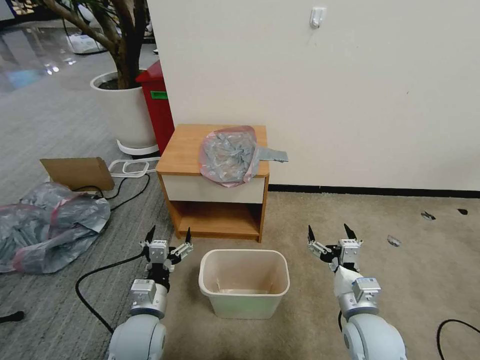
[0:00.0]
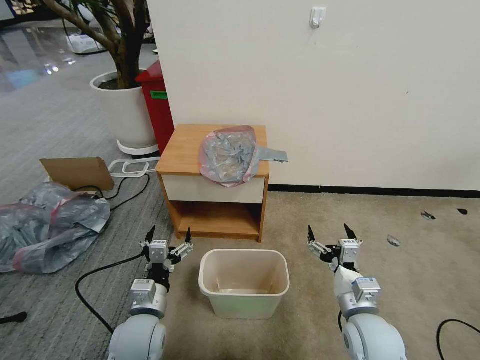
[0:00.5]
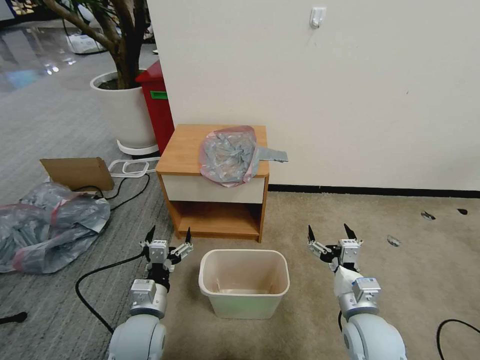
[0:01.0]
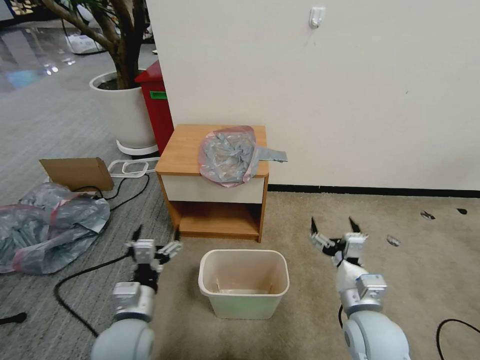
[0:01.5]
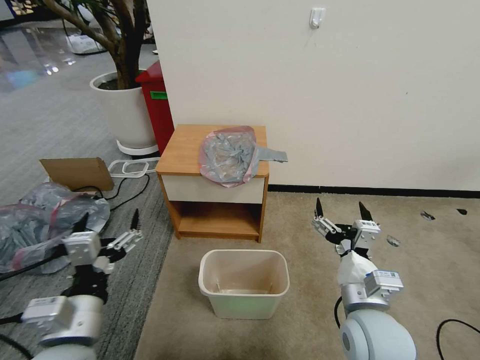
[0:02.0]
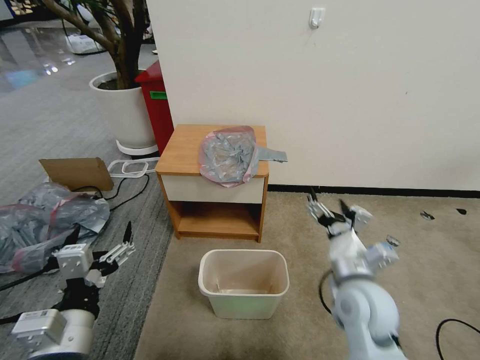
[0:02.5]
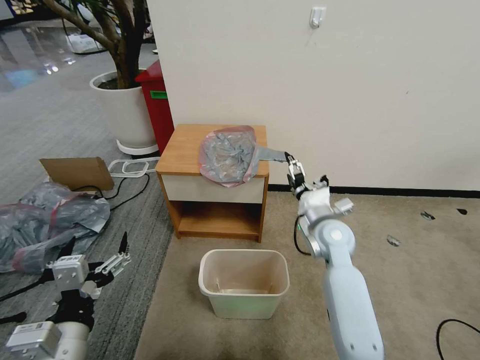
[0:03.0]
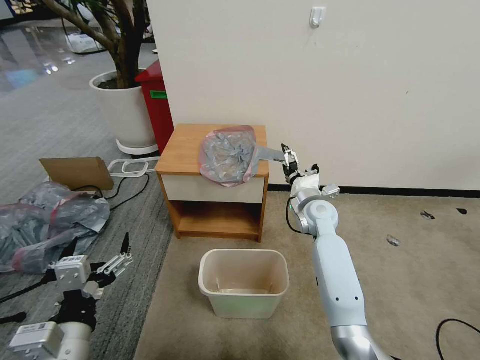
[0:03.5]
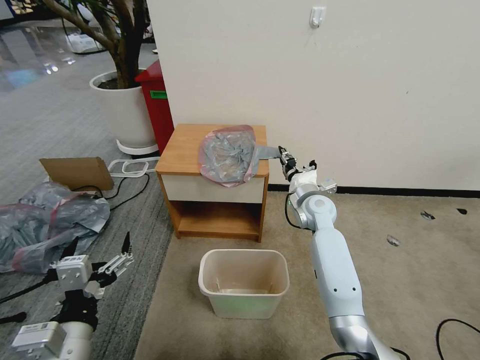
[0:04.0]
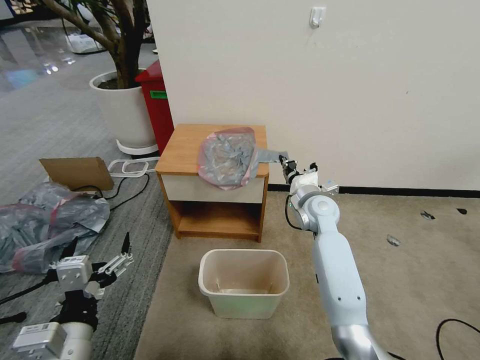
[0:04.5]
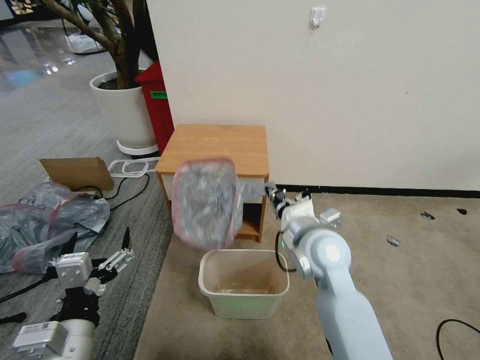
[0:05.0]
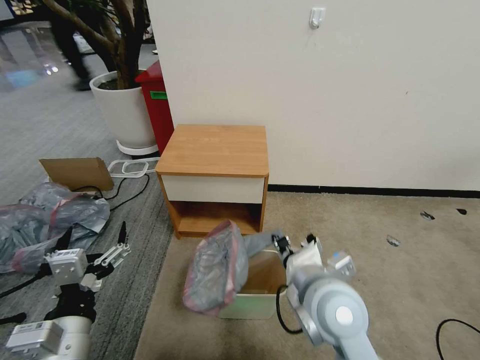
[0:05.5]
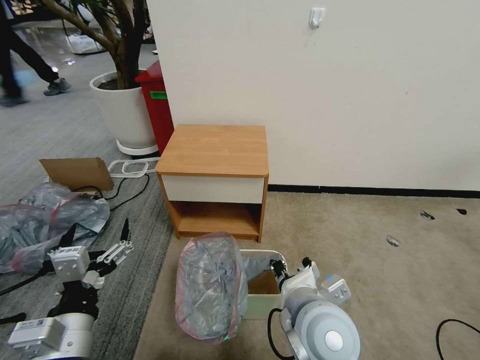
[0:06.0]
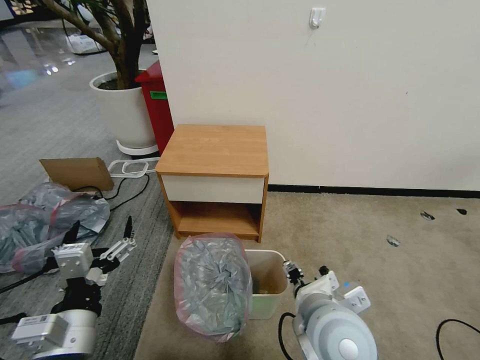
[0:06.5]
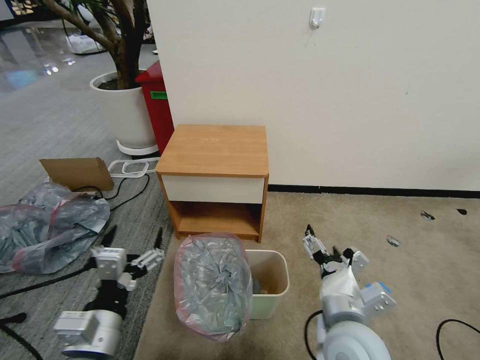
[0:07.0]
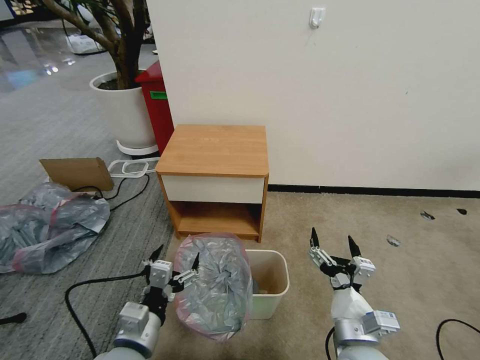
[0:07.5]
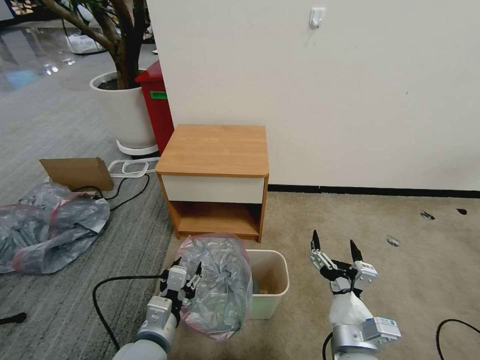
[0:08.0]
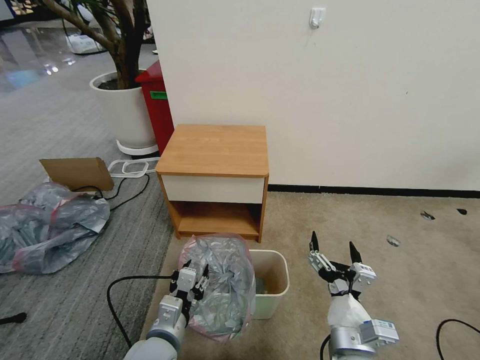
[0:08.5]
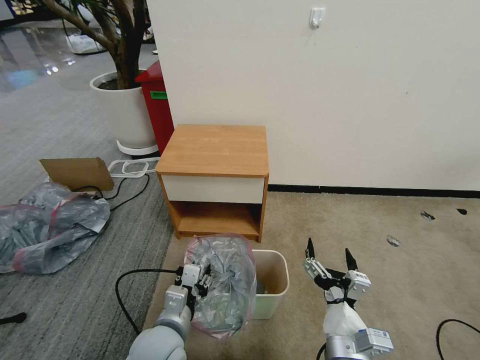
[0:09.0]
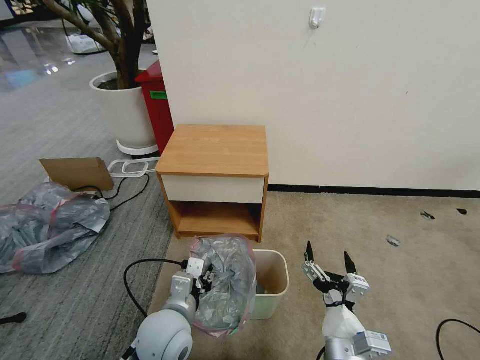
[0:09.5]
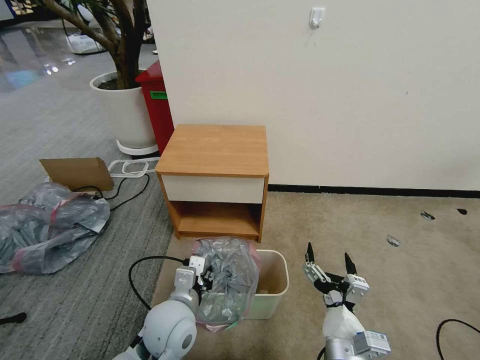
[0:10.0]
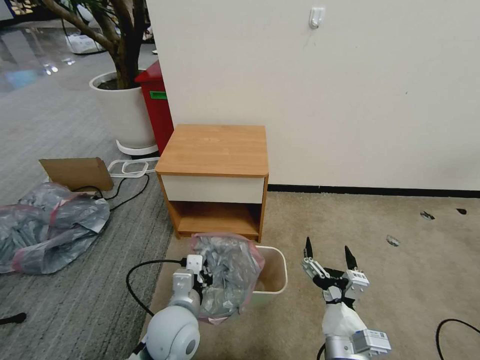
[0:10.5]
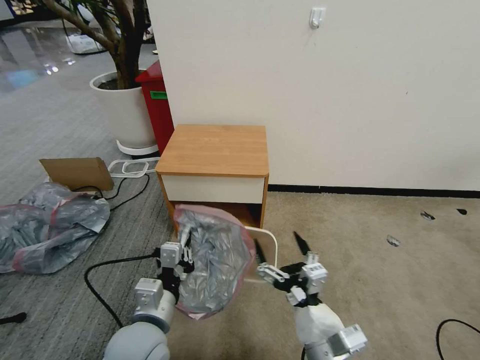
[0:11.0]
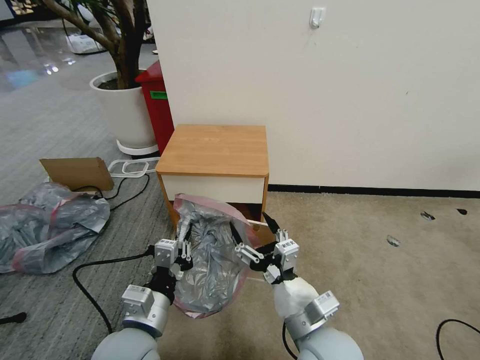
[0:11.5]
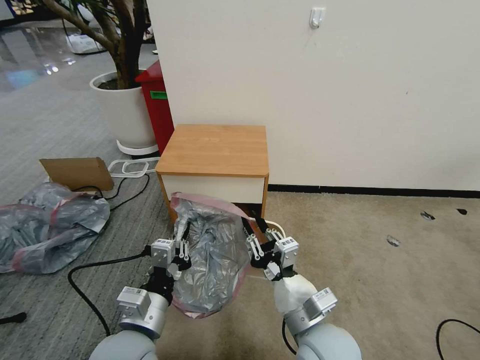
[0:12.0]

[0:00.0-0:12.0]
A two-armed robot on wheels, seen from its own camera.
Task of the whole recording: Pick up the garbage bag from the table and place it over the trash can.
0:02.0 to 0:04.0: The right gripper travels forward by about 30 cm, and closes its fingers.
0:04.0 to 0:06.0: The right gripper heads backward, covering roughly 30 cm.
0:06.0 to 0:08.0: The left gripper heads downward and to the right, covering approximately 15 cm, and closes up. The right gripper goes some 10 cm downward, to the right and backward, and opens.
0:08.0 to 0:10.0: The left gripper heads forward, covering some 5 cm.
0:10.0 to 0:12.0: The left gripper heads backward and upward, covering some 10 cm. The right gripper moves upward and forward, roughly 10 cm, and closes its fingers.

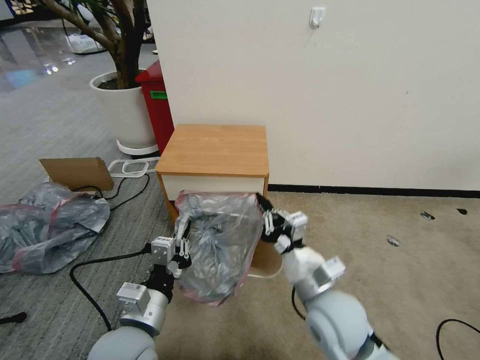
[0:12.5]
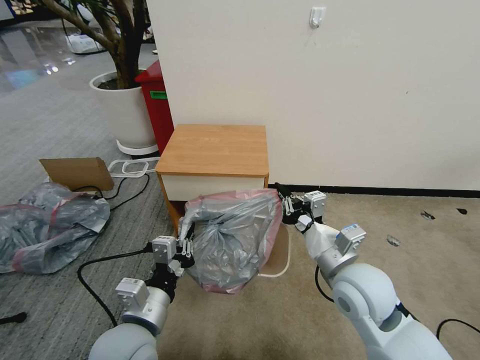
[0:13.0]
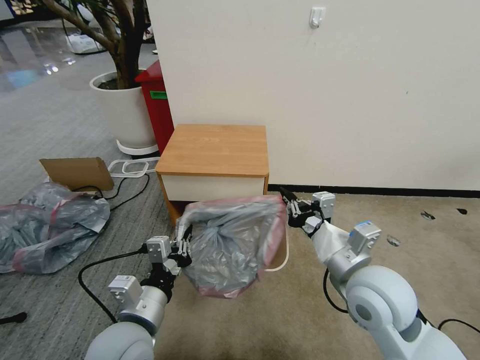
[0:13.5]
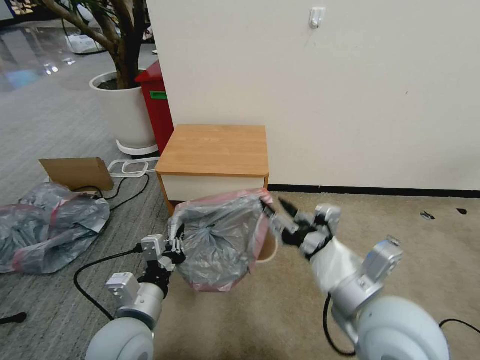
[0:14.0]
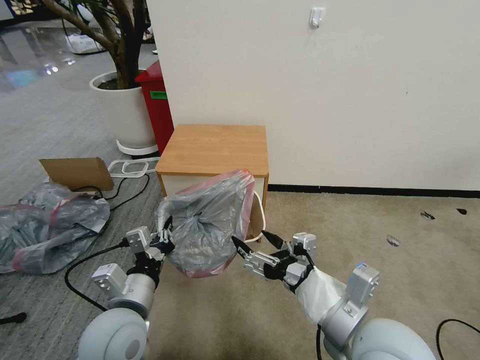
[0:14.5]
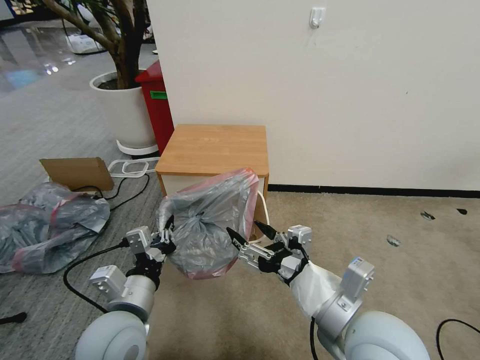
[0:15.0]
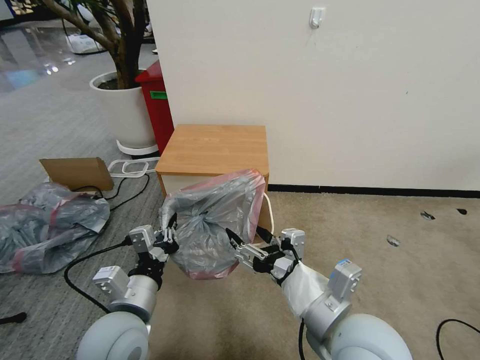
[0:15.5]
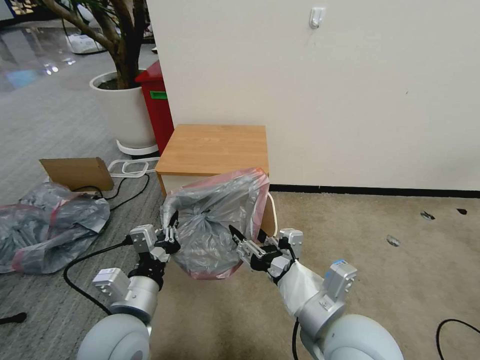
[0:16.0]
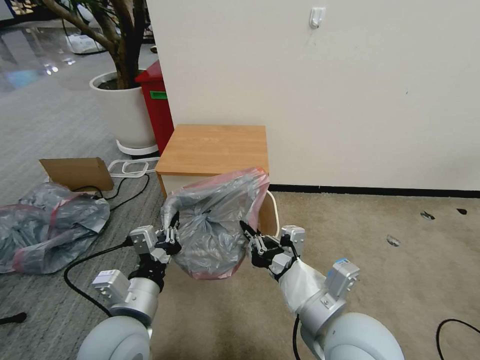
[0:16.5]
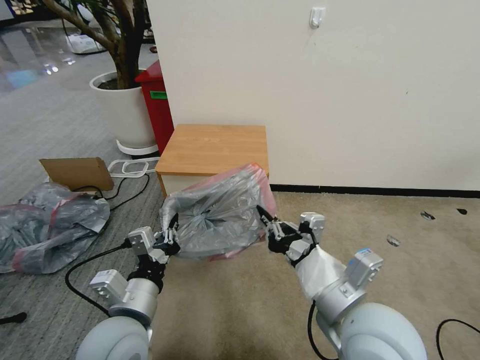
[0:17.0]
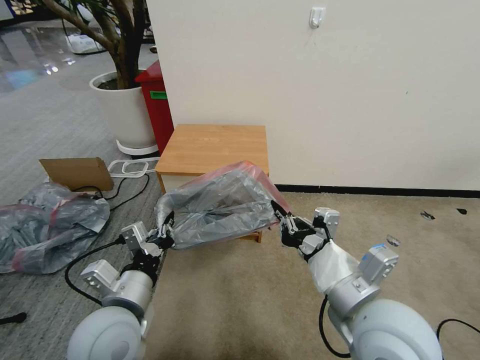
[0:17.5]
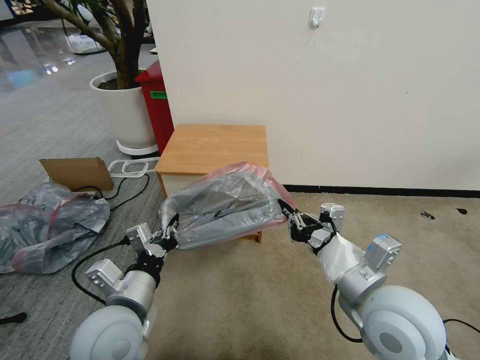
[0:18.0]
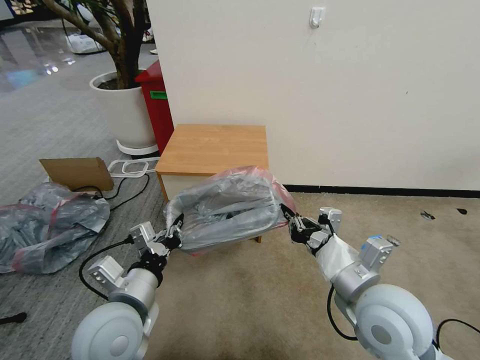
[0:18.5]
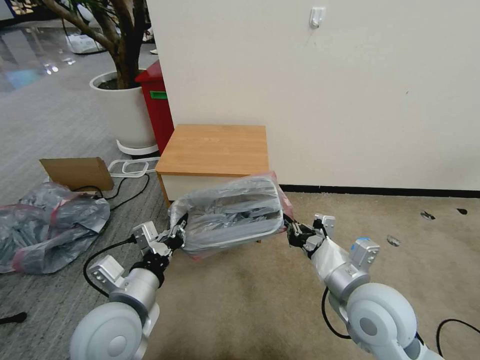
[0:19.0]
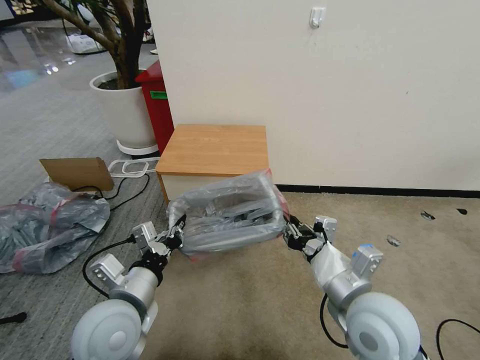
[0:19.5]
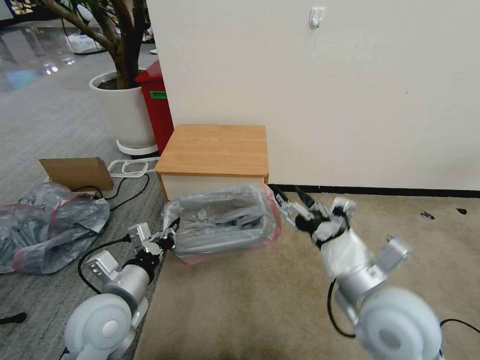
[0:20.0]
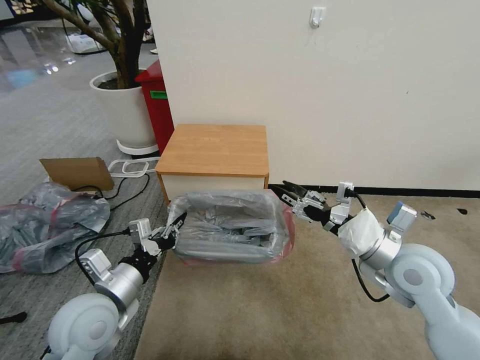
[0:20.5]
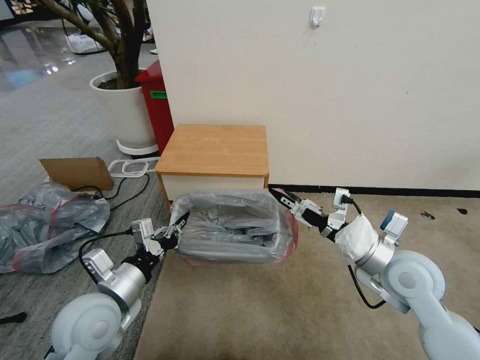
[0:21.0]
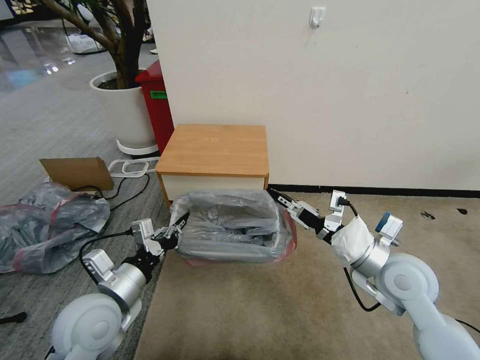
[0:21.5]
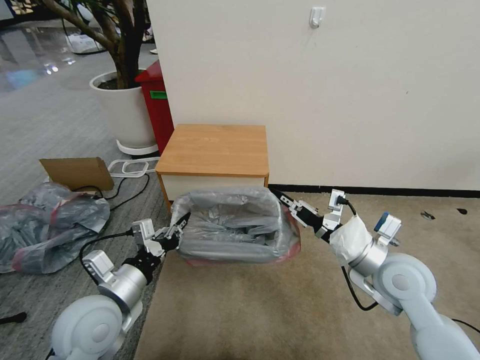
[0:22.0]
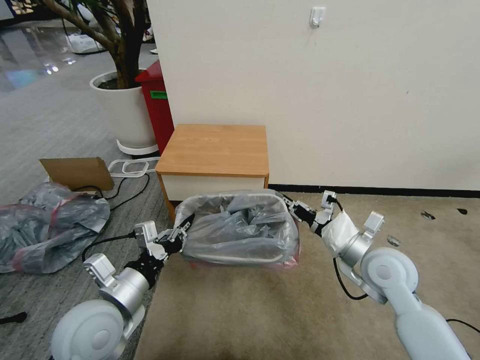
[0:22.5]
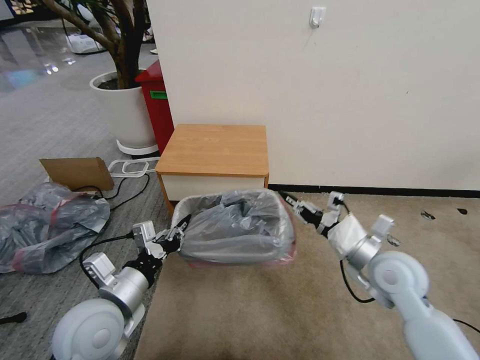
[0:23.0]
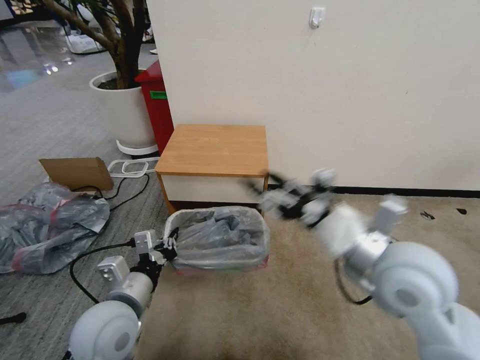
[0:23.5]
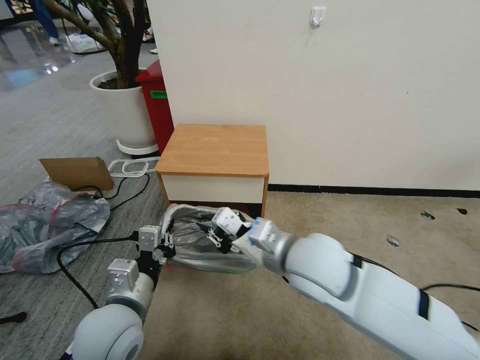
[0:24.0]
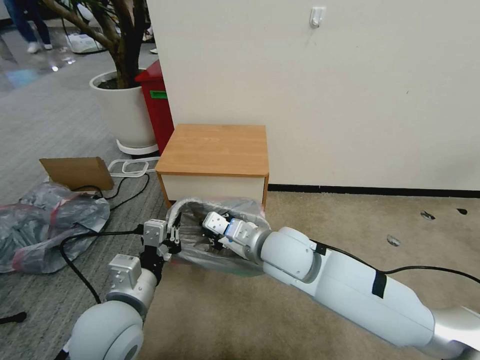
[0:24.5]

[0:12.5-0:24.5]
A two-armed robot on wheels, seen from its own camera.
Task of the whole recording: Pick up the garbage bag from the table and place it over the trash can.
0:12.5 to 0:14.5: The right gripper is displaced upward and backward by approximately 10 cm, and opens.
0:14.5 to 0:16.5: The right gripper closes up.
0:16.5 to 0:18.5: The right gripper goes some 5 cm to the right.
0:18.5 to 0:20.5: The right gripper shifts approximately 10 cm to the right and forward, and opens its fingers. Meanwhile the left gripper moves to the left, approximately 5 cm.
0:20.5 to 0:22.5: The right gripper goes some 5 cm downward, and closes.
0:22.5 to 0:24.5: The right gripper travels to the left by roughly 20 cm, and opens and closes again.

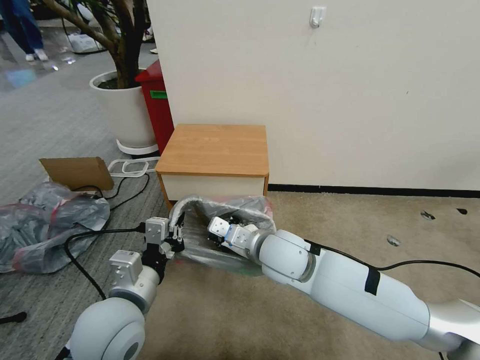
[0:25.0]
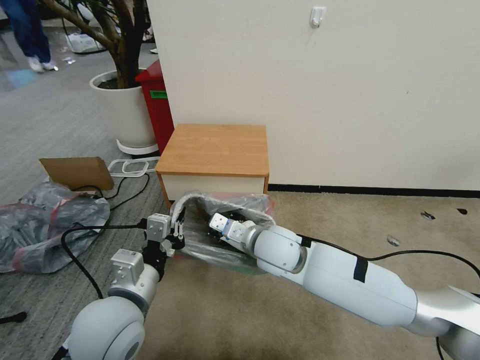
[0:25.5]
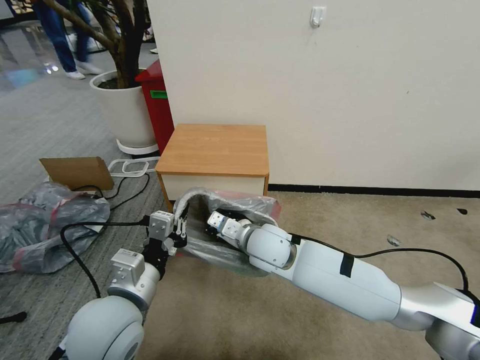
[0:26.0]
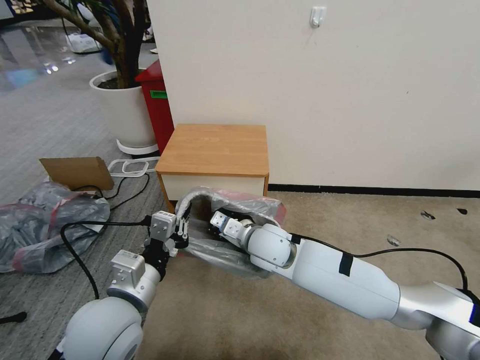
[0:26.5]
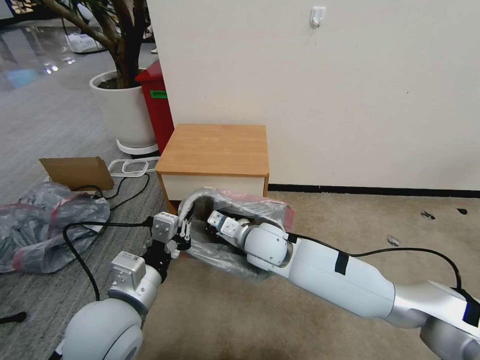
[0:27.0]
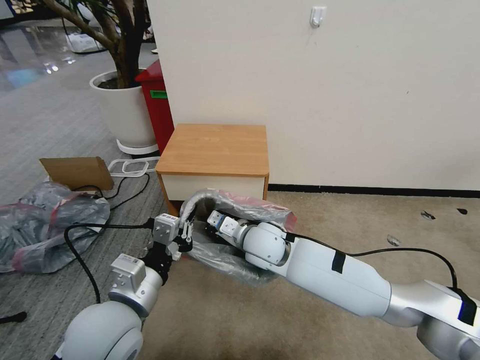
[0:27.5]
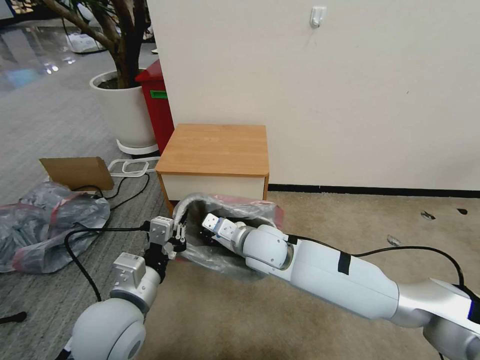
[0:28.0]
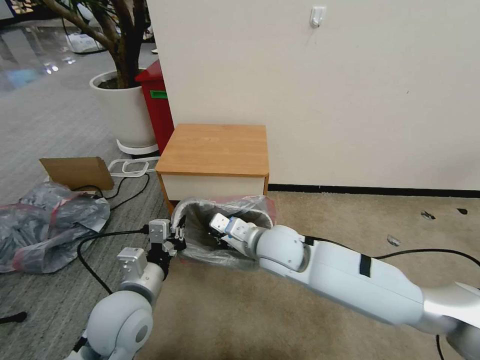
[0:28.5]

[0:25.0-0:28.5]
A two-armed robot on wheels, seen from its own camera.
Task of the whole recording: Pick up the garbage bag from the table and place it over the trash can.
0:25.0 to 0:27.0: The right gripper shifts by approximately 5 cm.
0:27.0 to 0:28.5: The left gripper ends up some 5 cm from where it was.
